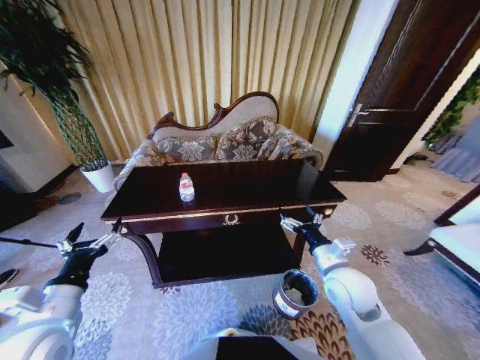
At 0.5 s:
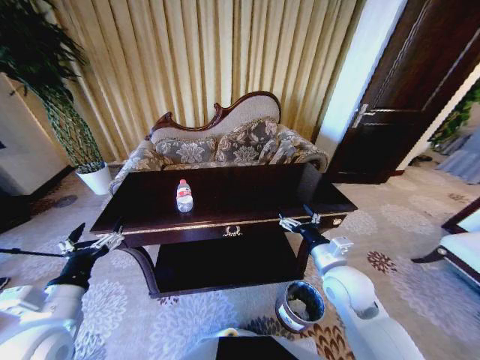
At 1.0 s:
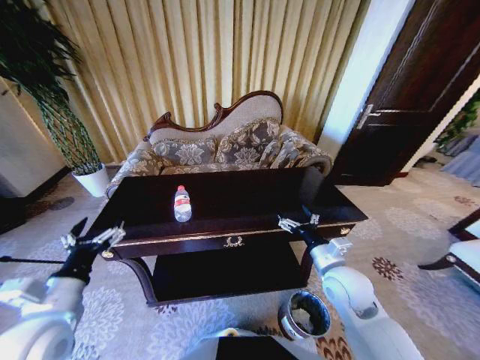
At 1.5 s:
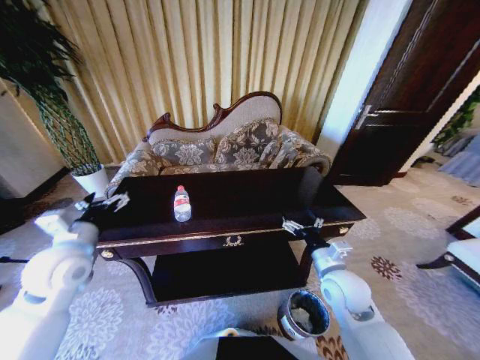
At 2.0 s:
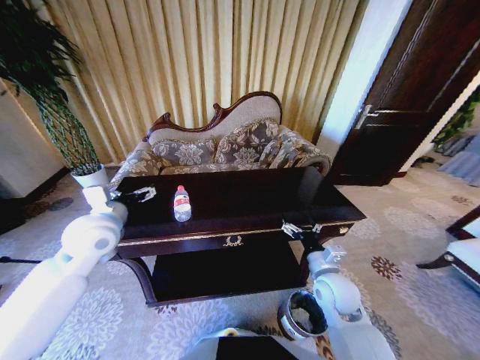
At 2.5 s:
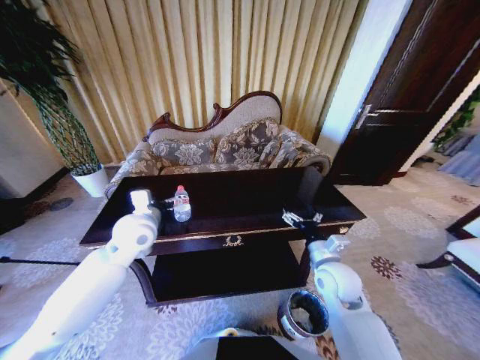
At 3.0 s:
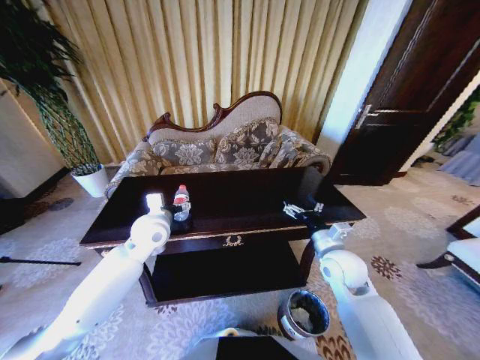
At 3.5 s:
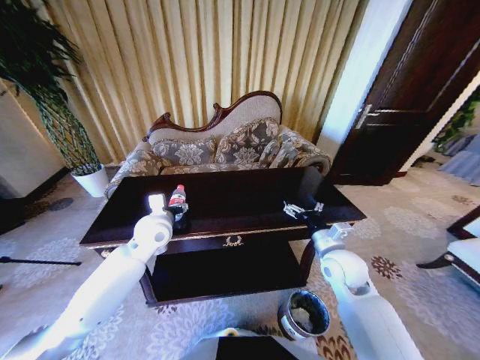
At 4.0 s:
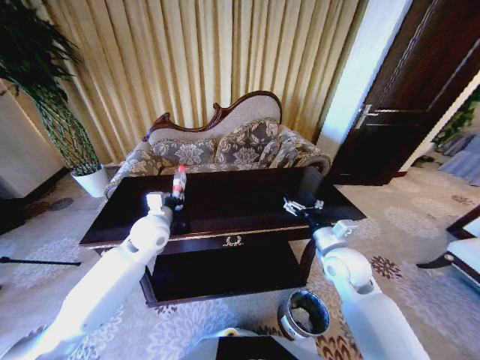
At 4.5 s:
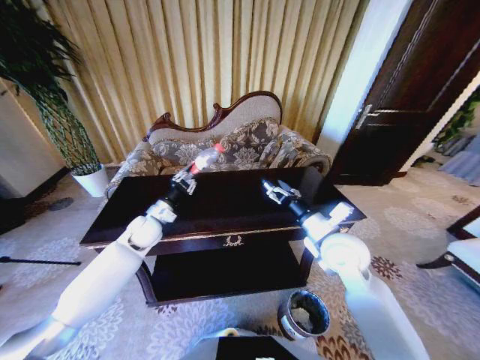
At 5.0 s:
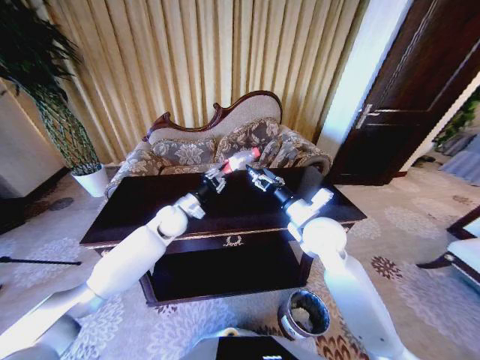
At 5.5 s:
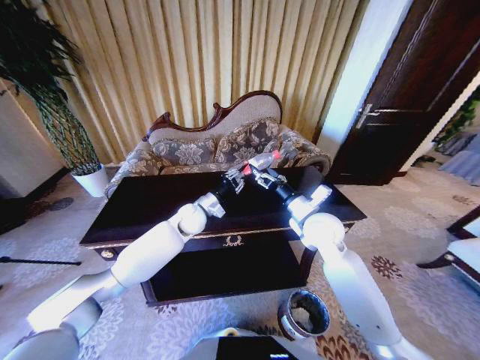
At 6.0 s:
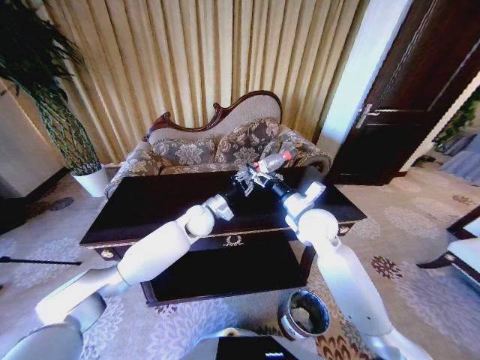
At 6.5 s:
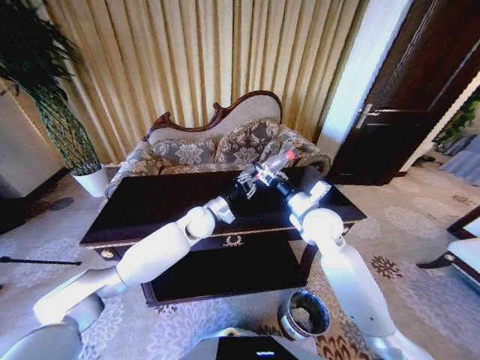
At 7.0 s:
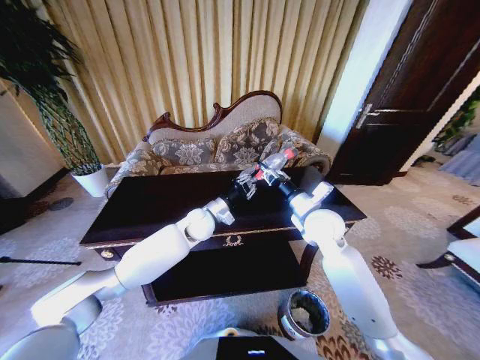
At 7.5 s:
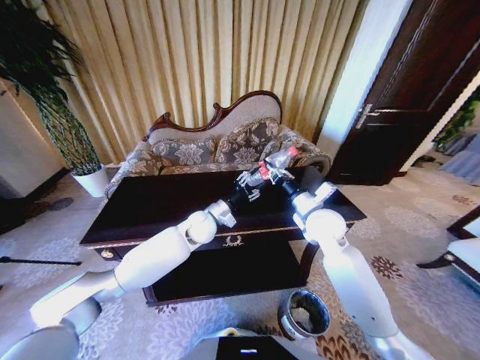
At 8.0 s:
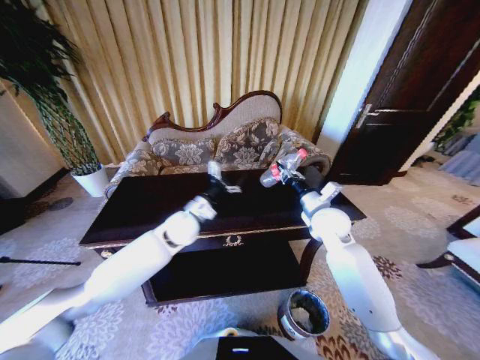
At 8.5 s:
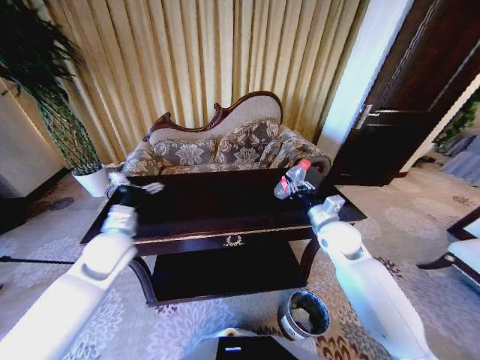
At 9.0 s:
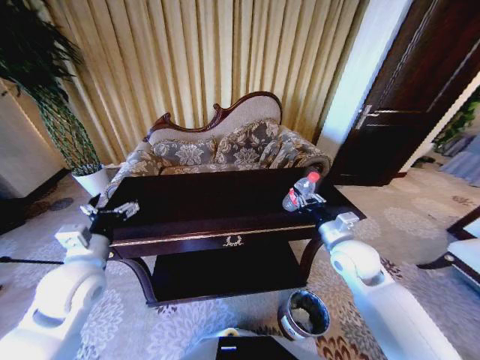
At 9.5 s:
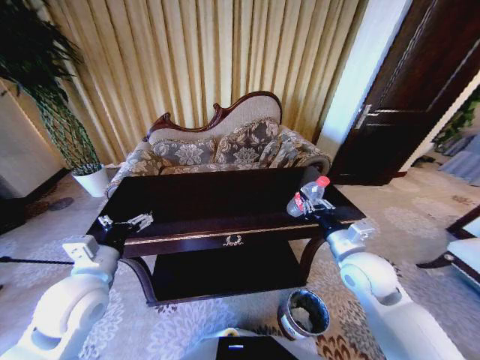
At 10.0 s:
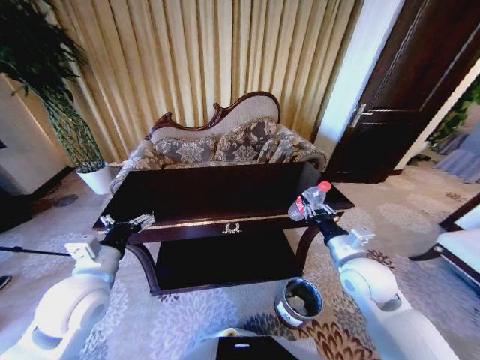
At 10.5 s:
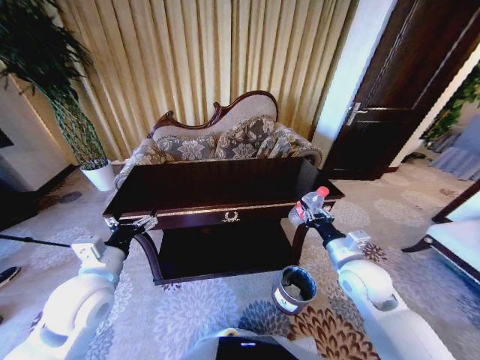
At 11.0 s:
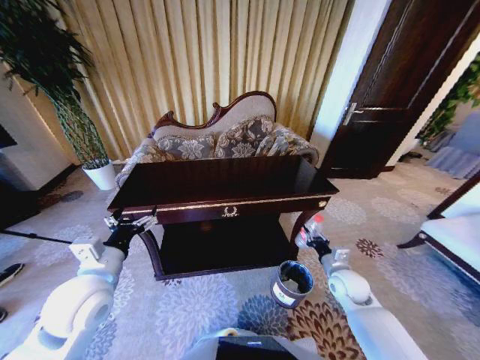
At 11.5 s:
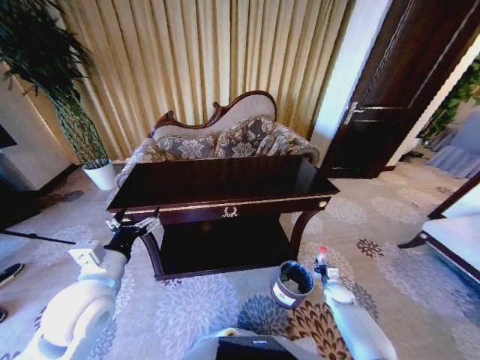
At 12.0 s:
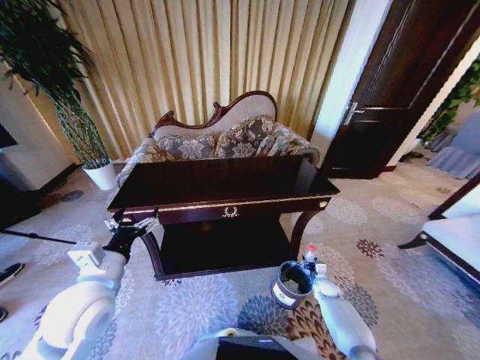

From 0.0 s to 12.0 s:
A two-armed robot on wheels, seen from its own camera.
Task of the whole recording: Move to the front of the table and place the trash on the table into the trash bin.
From 0.0 s to 2.0 s: The left gripper moves forward, roughly 20 cm.
From 2.0 s to 4.0 s: The right gripper goes some 5 cm upward, while the left gripper heads to the right, downward and forward, covering roughly 10 cm, and closes.
From 4.0 s to 6.0 s: The right gripper shifts roughly 10 cm forward, to the left and upward. The left gripper heads to the right and forward, covering roughly 15 cm.
From 6.0 s to 8.0 s: The right gripper moves to the right, some 5 cm, and closes up, while the left gripper shifts by approximately 5 cm, and opens.
From 8.0 s to 10.0 s: The left gripper heads backward and to the left, covering approximately 25 cm; the right gripper travels backward by about 15 cm.
From 10.0 s to 12.0 s: The right gripper is displaced downward by approximately 35 cm.

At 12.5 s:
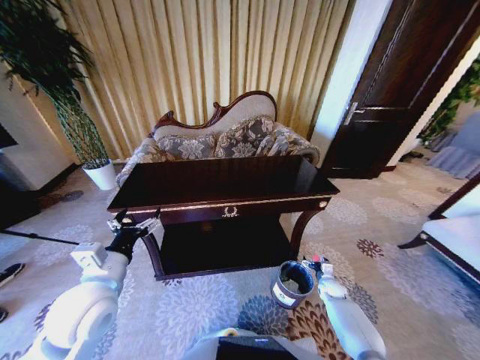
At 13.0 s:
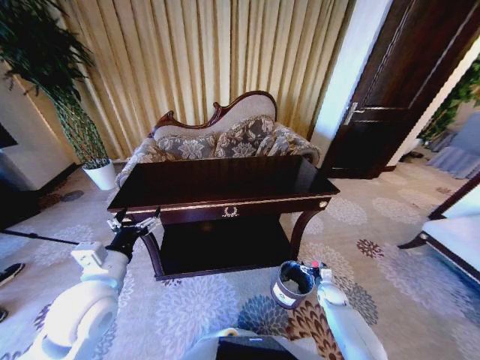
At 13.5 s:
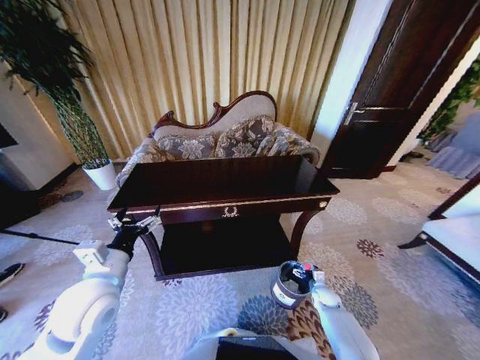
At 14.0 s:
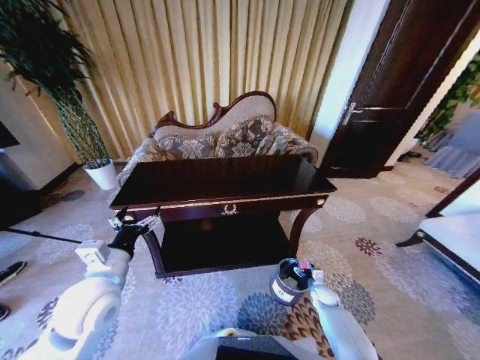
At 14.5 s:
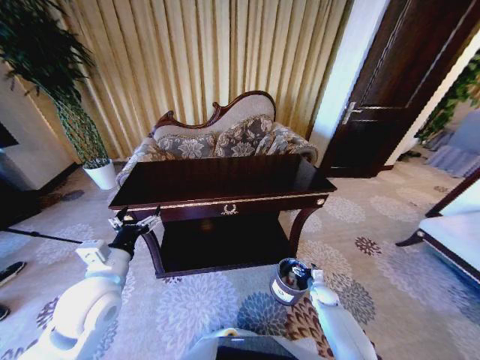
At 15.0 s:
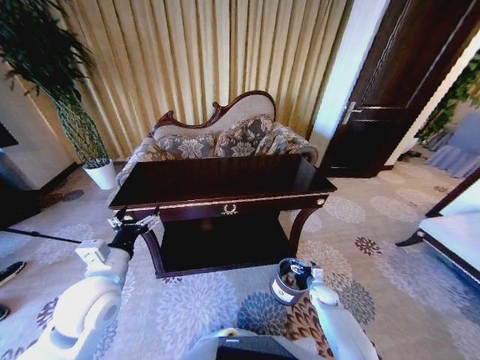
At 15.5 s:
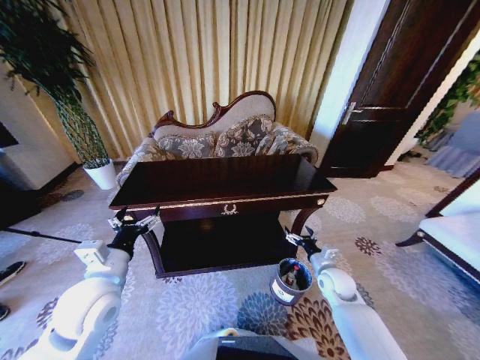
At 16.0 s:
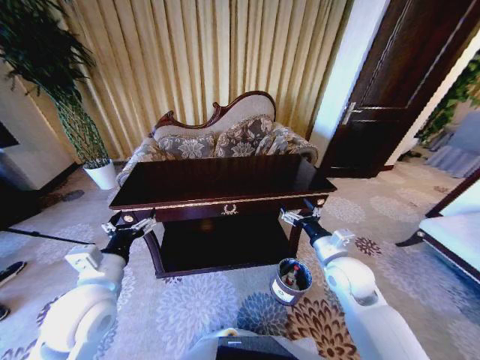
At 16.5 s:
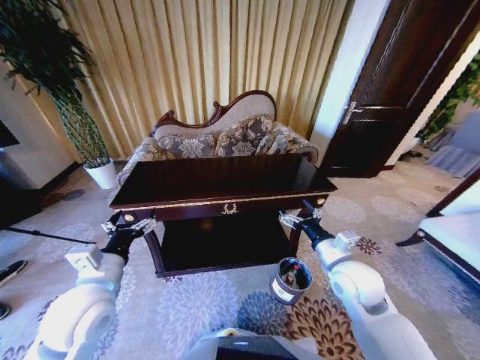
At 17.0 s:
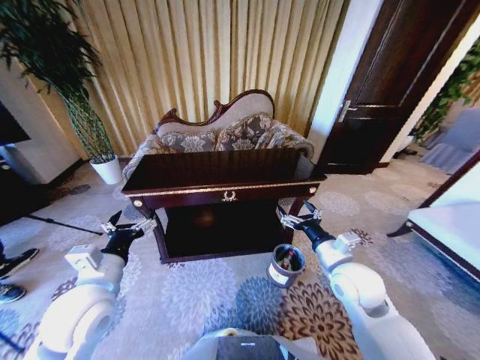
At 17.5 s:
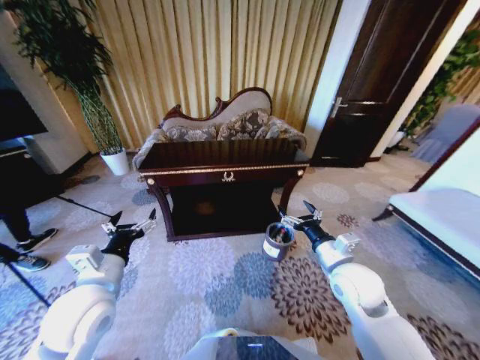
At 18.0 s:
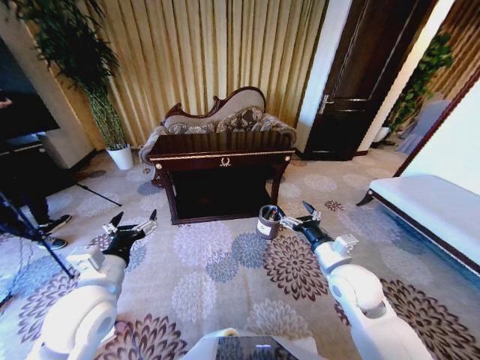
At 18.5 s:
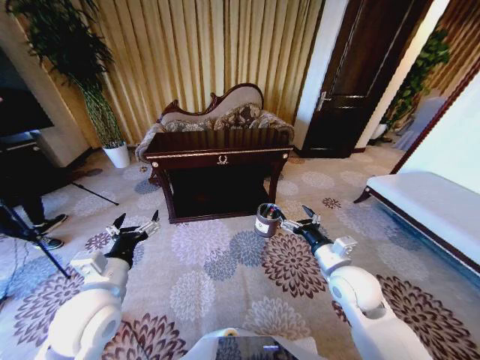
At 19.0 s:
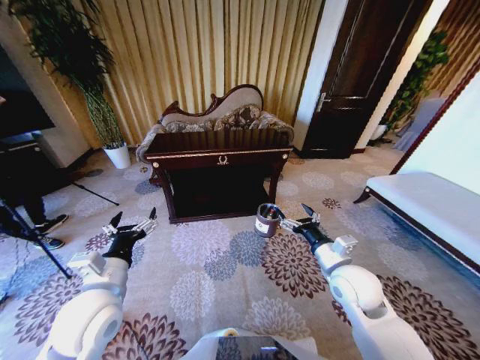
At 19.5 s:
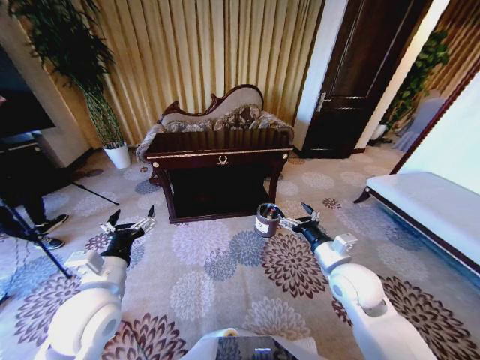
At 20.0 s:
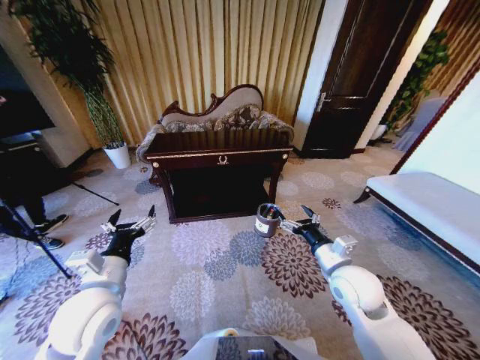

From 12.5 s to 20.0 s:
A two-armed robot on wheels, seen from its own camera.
Task of the whole recording: Move to the front of the table and place the trash on the table into the trash bin.
From 12.5 s to 14.5 s: The grippers move only a little.
From 14.5 s to 16.5 s: The right gripper moves upward, roughly 35 cm.
